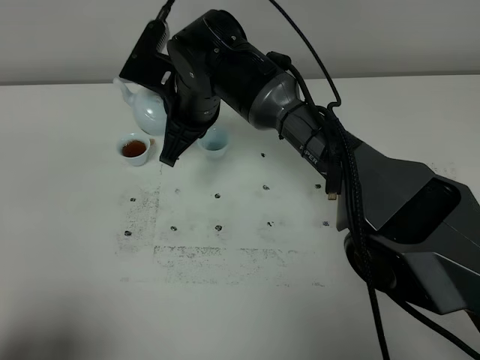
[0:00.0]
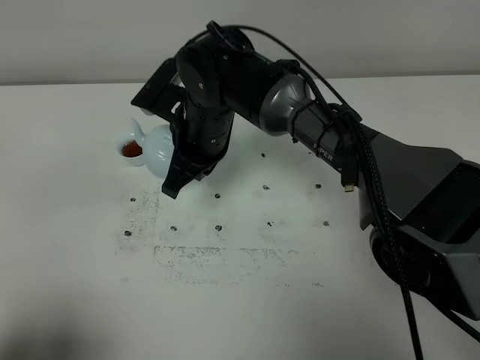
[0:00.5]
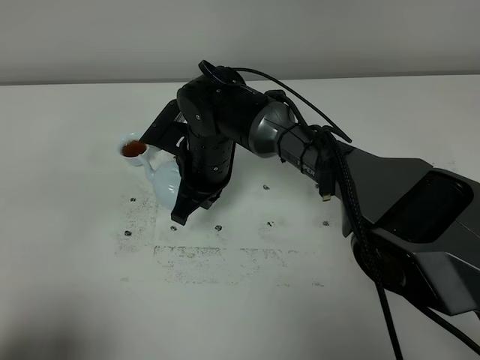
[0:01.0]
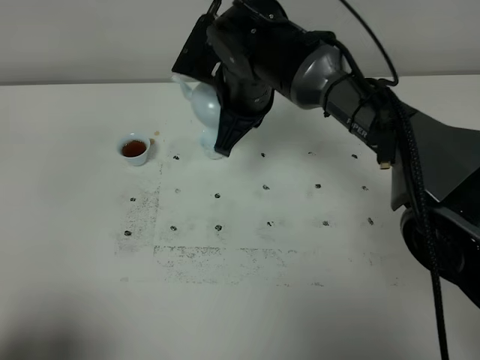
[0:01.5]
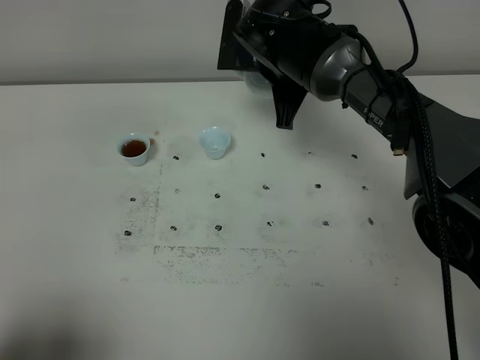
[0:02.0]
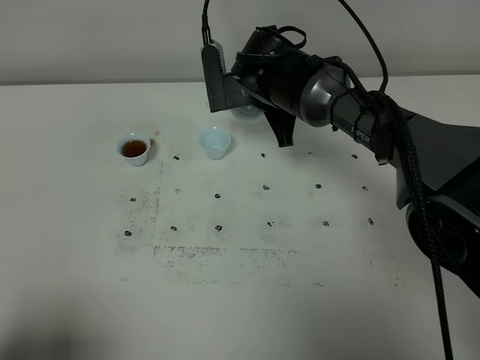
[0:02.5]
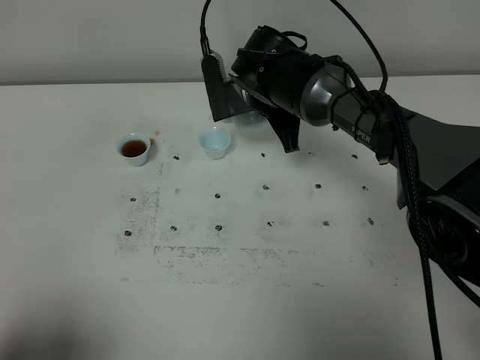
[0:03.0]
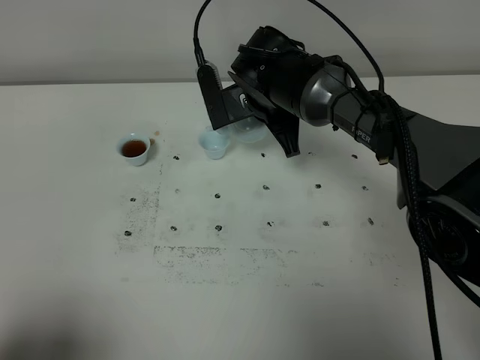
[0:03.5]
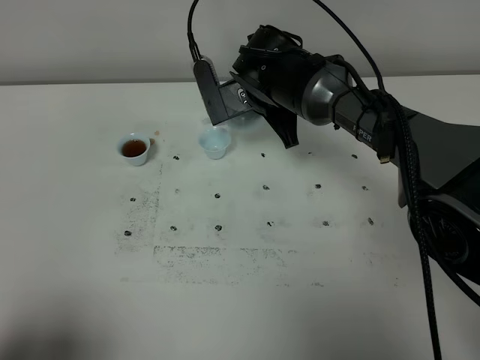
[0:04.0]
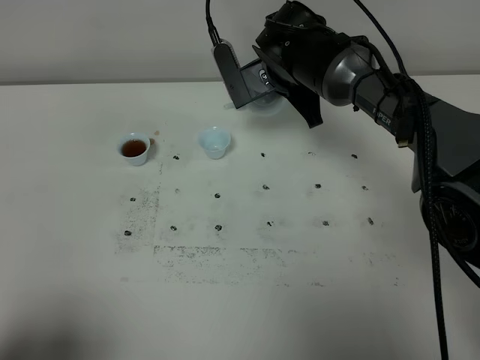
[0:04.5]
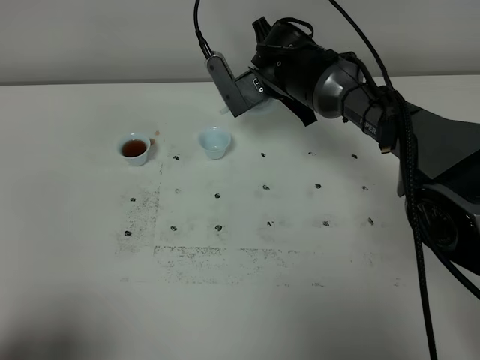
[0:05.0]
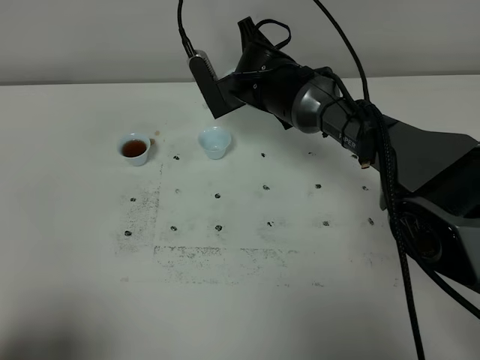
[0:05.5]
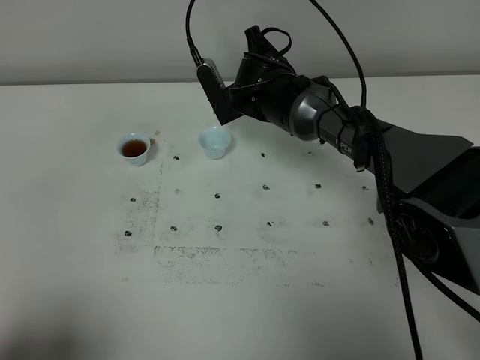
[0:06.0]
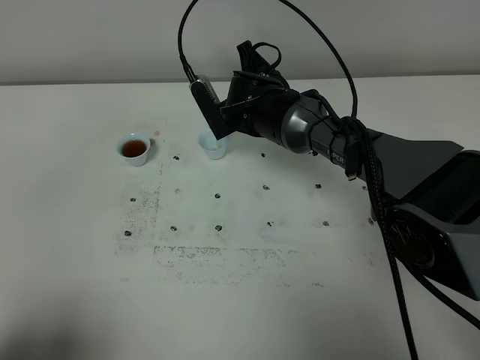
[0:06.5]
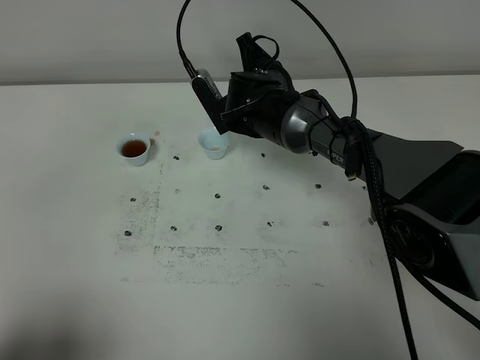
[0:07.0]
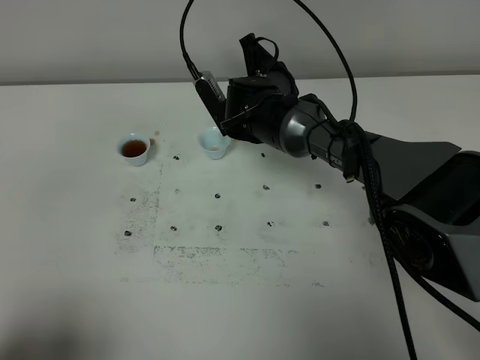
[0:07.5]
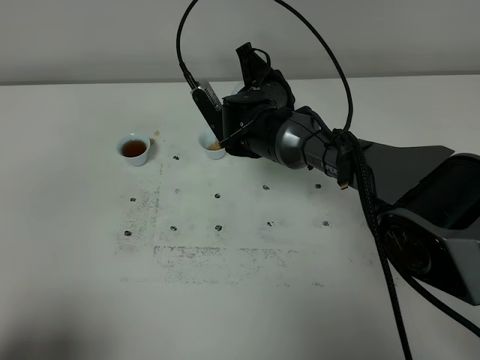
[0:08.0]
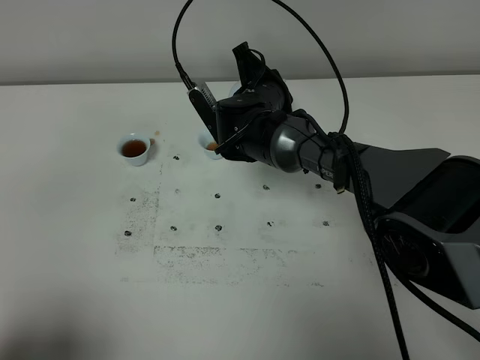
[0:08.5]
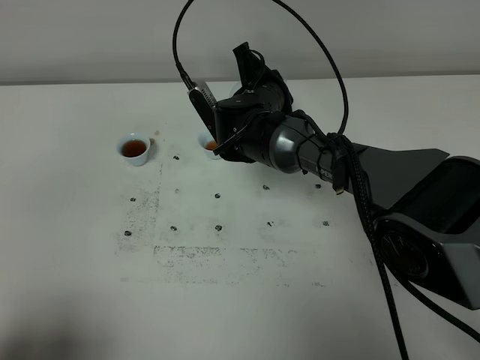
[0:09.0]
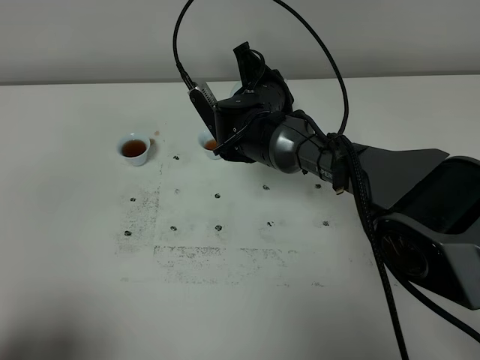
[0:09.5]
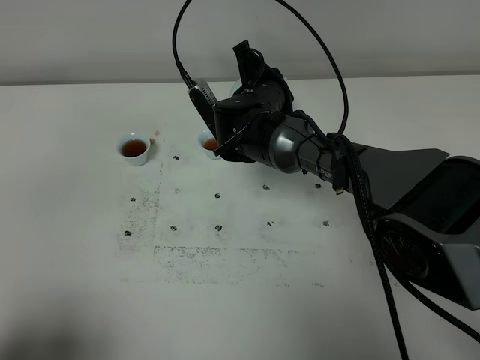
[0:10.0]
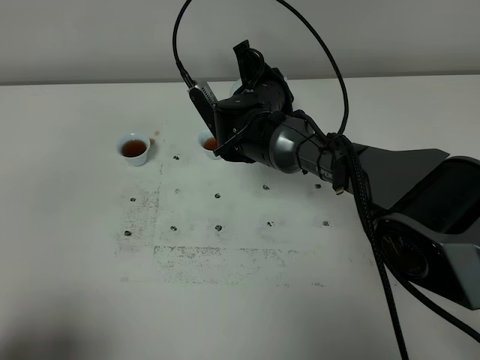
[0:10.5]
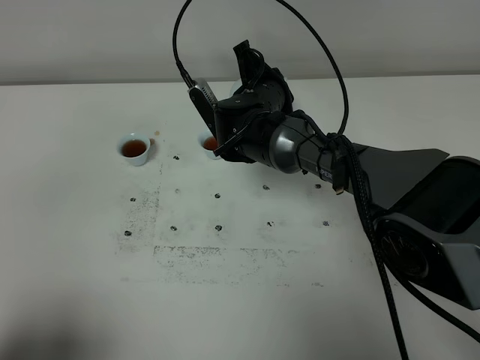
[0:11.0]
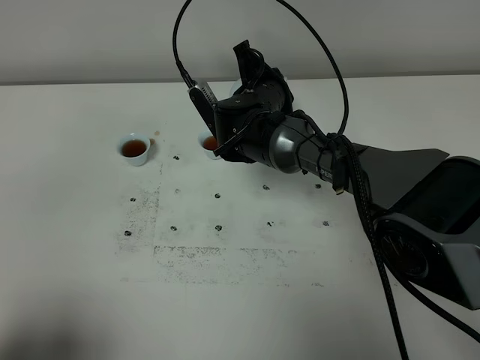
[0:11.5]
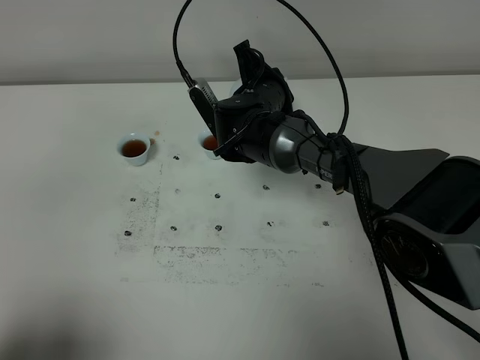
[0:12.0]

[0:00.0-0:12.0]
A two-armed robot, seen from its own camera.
Task of the whole recording: grasp the blue porcelain teapot and pour the tea into the two blue porcelain teacups one by one, put the blue porcelain teapot back in its original place.
0:00.0 to 0:02.0: The right gripper travels to the right by roughly 10 cm.
0:04.0 to 0:06.0: The grippers make only small movements.
0:06.0 to 0:08.0: The grippers move only a little.
0:08.0 to 0:12.0: Both grippers stay about where they are.

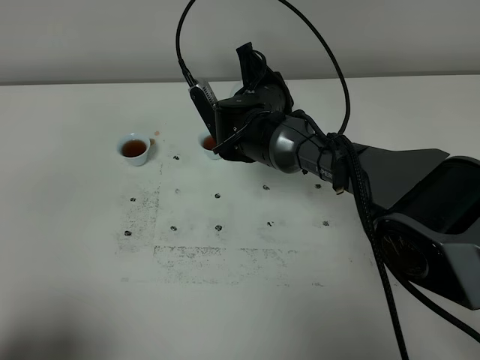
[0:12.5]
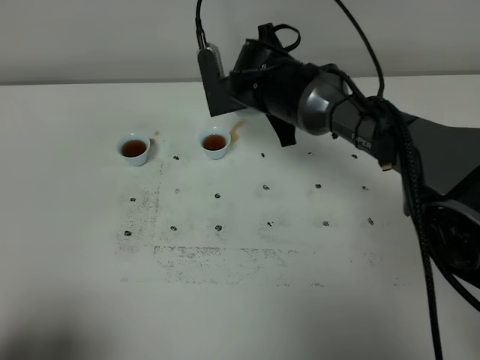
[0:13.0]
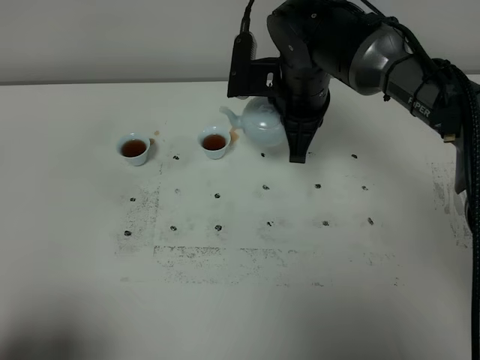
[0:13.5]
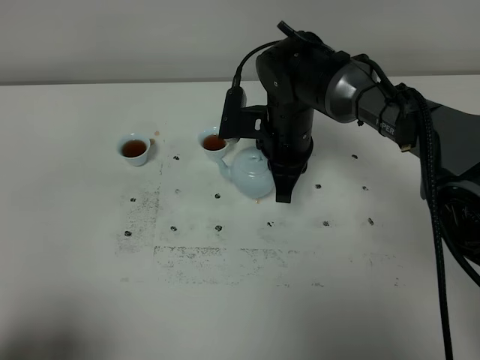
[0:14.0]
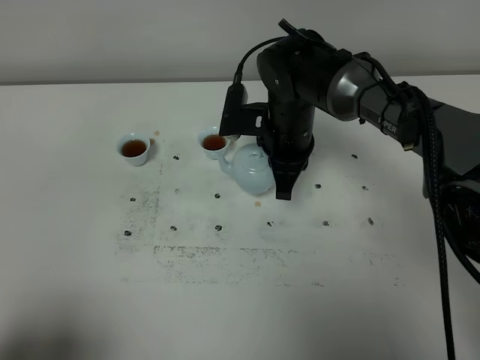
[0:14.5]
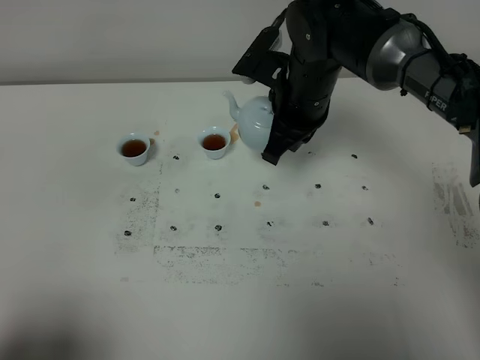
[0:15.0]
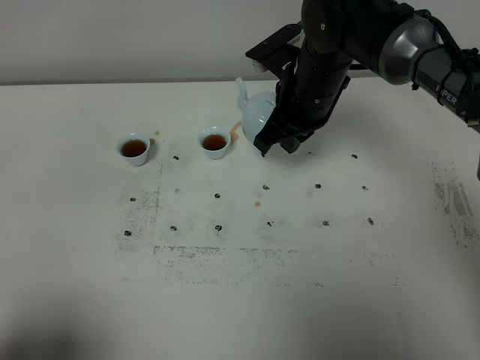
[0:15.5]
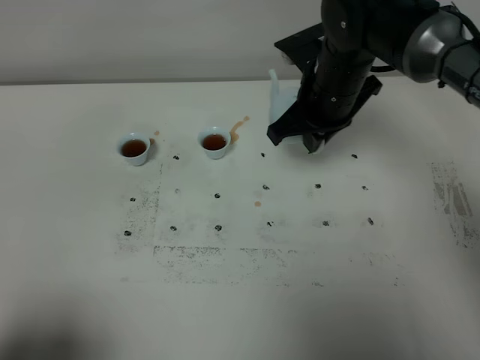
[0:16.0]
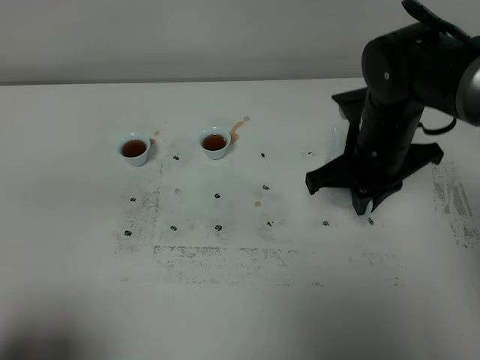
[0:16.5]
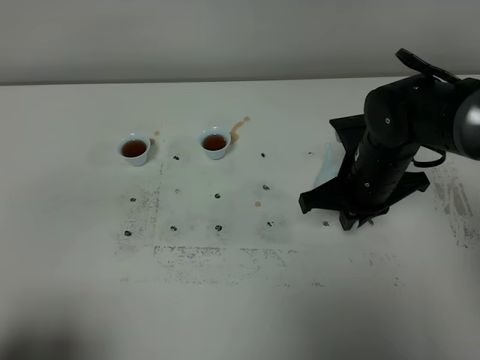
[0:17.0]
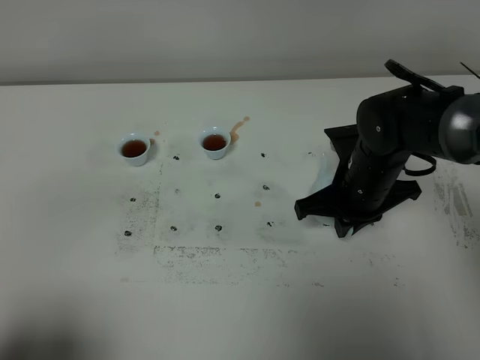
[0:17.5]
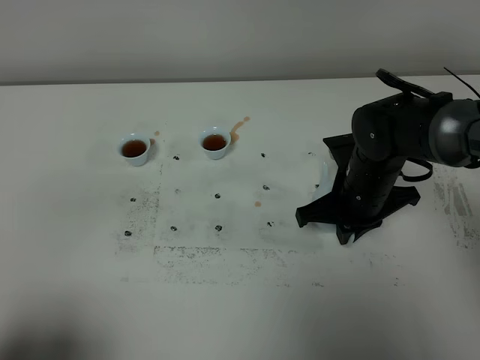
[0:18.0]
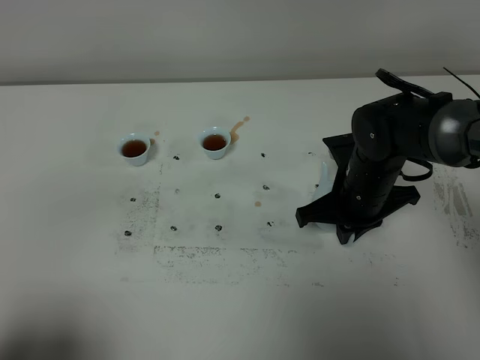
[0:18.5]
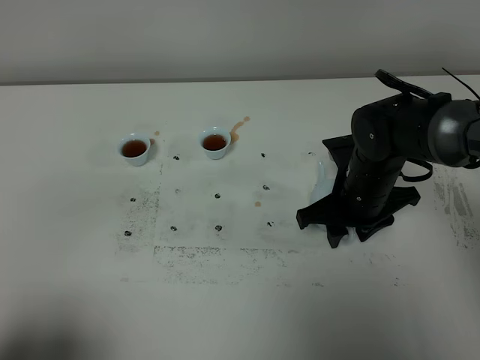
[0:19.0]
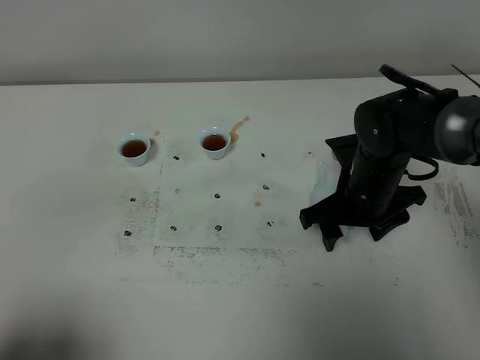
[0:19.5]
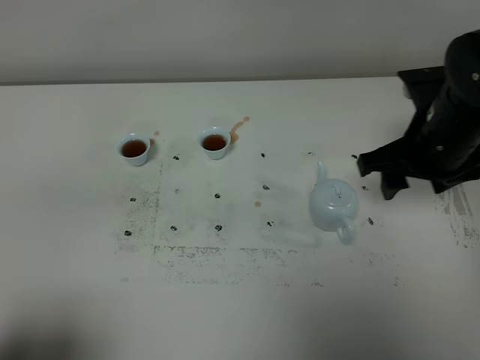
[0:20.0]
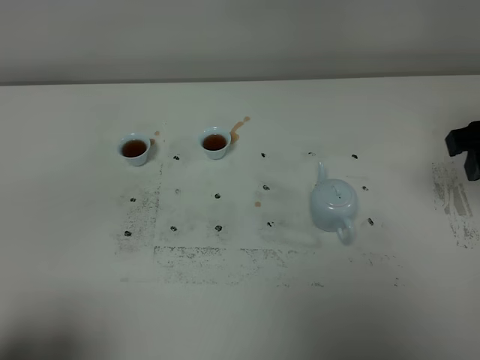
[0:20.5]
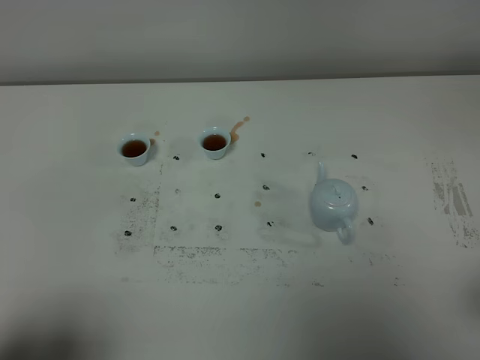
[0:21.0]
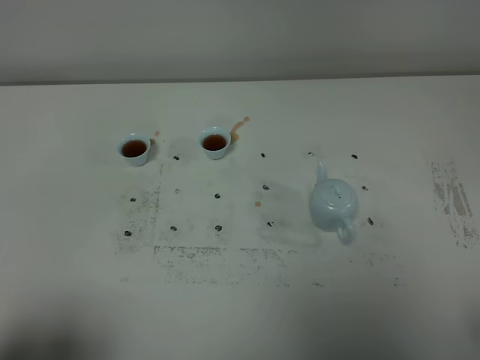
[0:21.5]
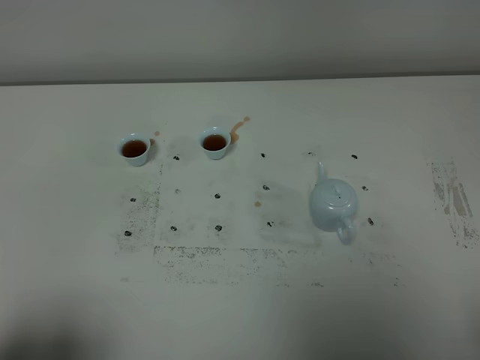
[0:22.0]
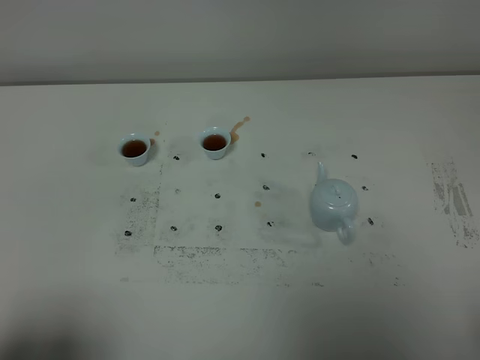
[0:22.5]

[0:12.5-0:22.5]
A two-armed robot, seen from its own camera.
Task of the whole recording: grasp the blue porcelain teapot and pour the tea into the two blue porcelain teacups one by one, put the blue porcelain teapot back in its original place.
0:12.5 to 0:14.5: The right gripper moves roughly 10 cm upward and comes back.
0:14.5 to 0:16.5: The right gripper travels to the right and backward by approximately 10 cm.
0:16.5 to 0:18.5: The right gripper moves downward, roughly 5 cm.
0:18.5 to 0:20.5: The right gripper is displaced upward and to the right by approximately 20 cm, and opens its fingers.
0:20.5 to 0:22.5: The right gripper is displaced backward by some 25 cm.
